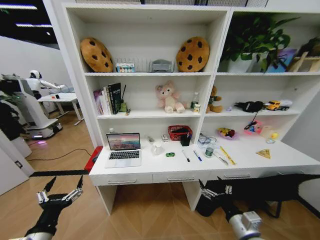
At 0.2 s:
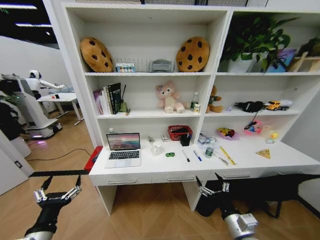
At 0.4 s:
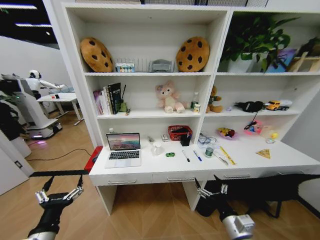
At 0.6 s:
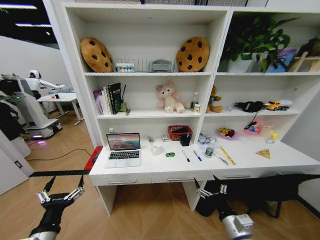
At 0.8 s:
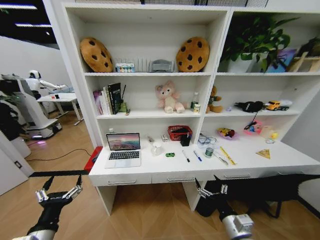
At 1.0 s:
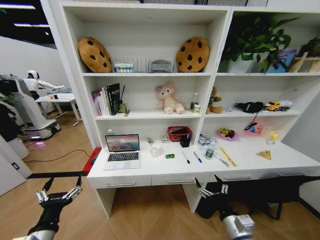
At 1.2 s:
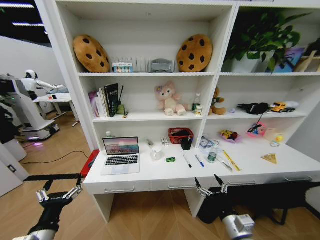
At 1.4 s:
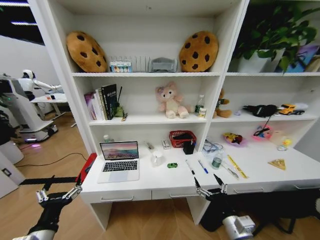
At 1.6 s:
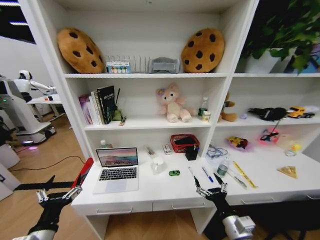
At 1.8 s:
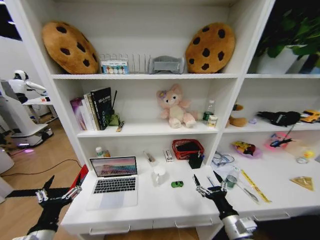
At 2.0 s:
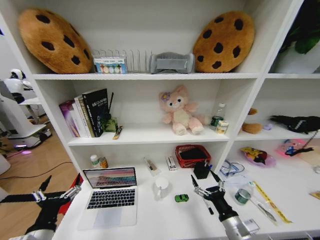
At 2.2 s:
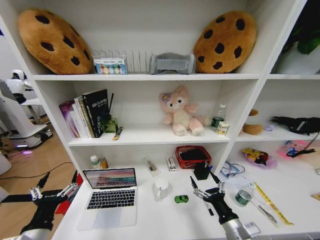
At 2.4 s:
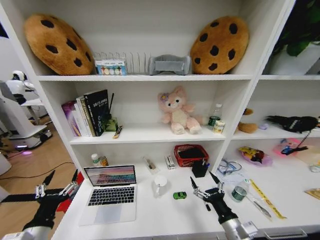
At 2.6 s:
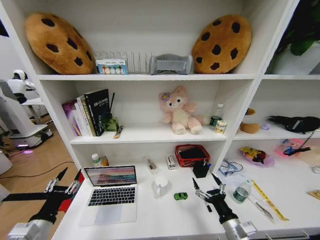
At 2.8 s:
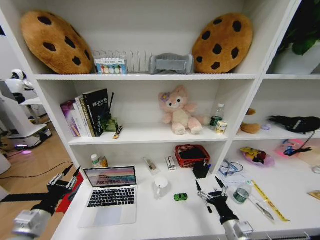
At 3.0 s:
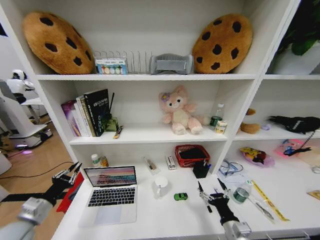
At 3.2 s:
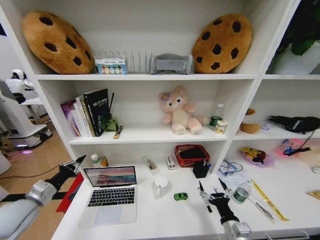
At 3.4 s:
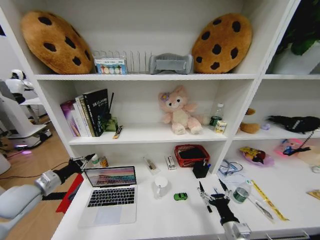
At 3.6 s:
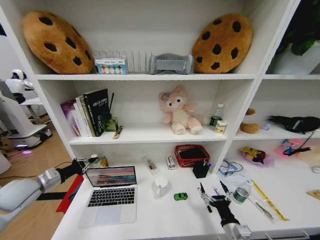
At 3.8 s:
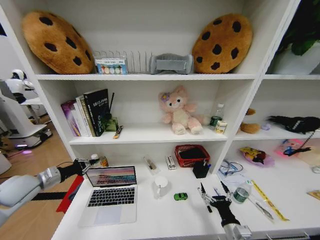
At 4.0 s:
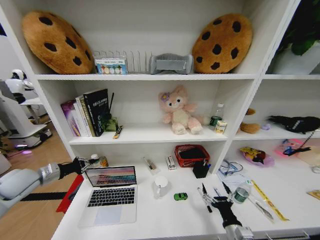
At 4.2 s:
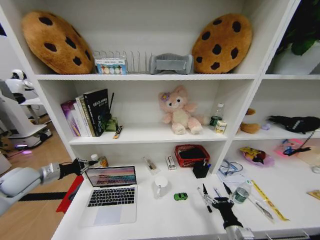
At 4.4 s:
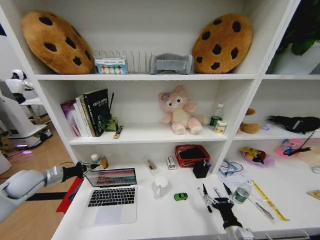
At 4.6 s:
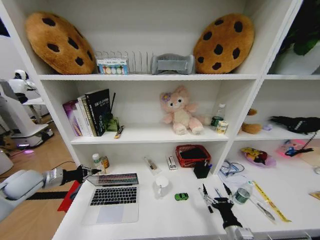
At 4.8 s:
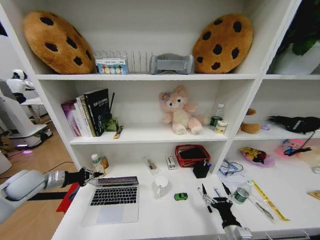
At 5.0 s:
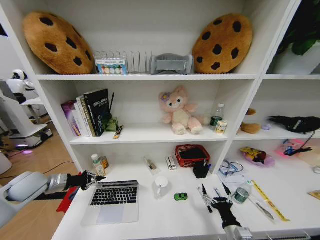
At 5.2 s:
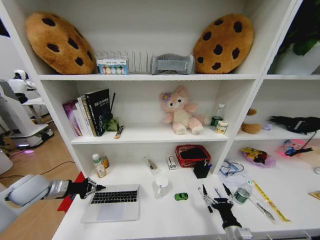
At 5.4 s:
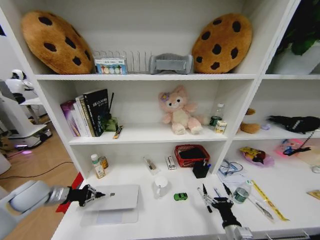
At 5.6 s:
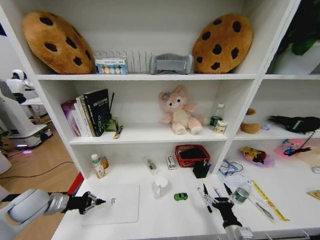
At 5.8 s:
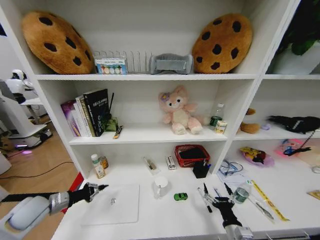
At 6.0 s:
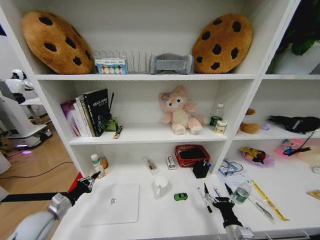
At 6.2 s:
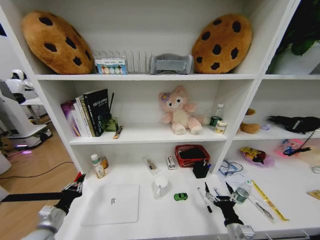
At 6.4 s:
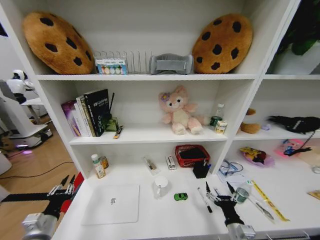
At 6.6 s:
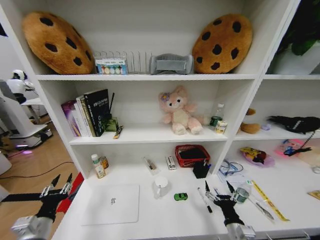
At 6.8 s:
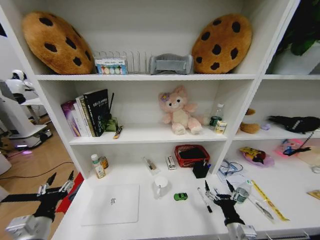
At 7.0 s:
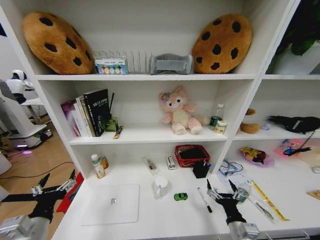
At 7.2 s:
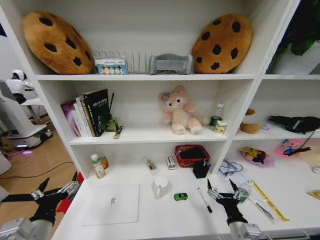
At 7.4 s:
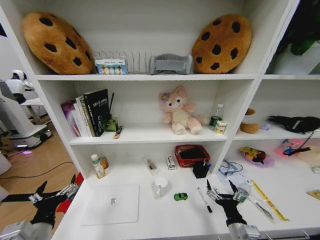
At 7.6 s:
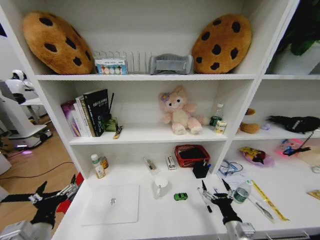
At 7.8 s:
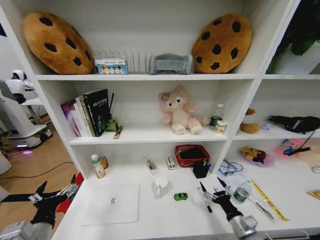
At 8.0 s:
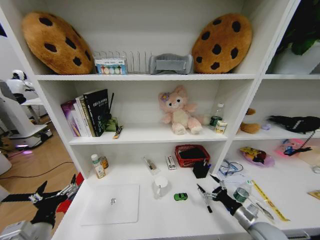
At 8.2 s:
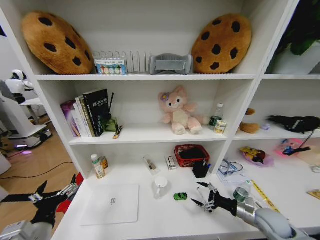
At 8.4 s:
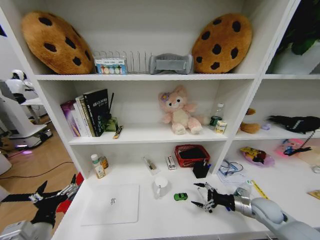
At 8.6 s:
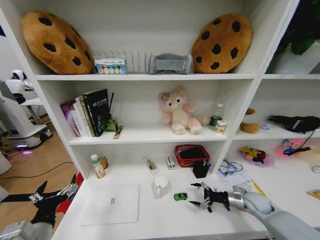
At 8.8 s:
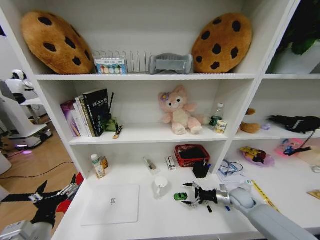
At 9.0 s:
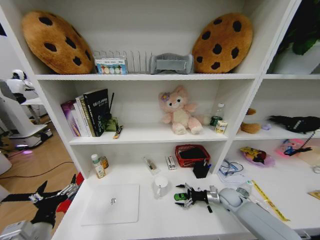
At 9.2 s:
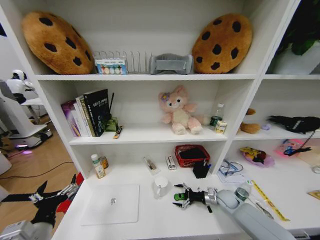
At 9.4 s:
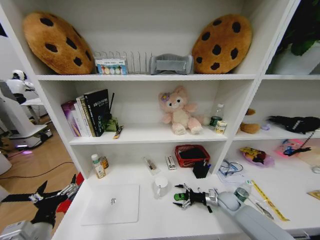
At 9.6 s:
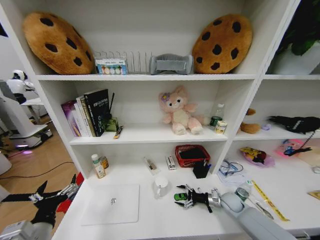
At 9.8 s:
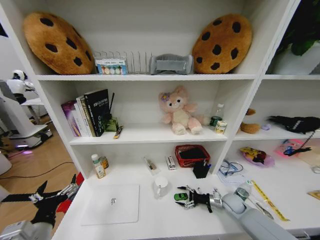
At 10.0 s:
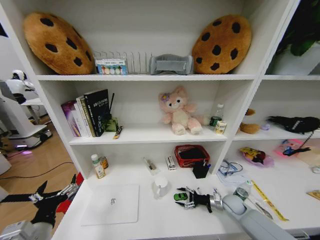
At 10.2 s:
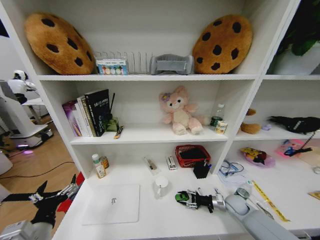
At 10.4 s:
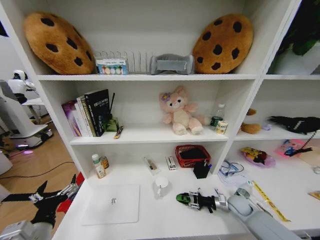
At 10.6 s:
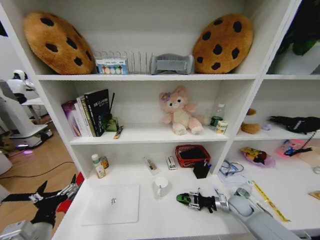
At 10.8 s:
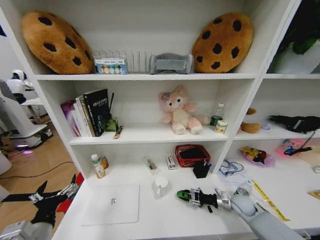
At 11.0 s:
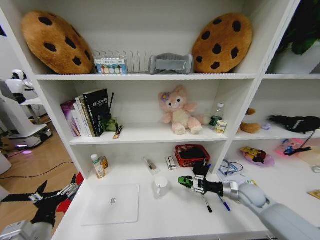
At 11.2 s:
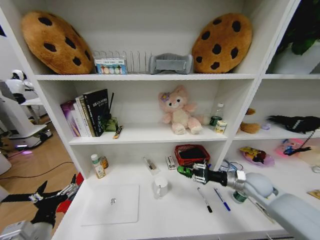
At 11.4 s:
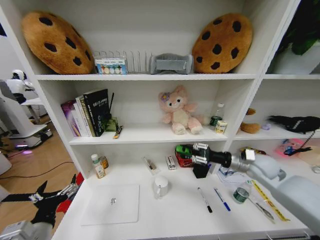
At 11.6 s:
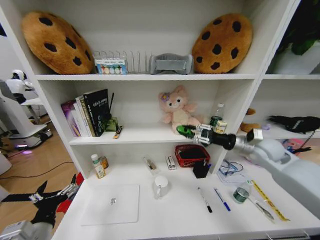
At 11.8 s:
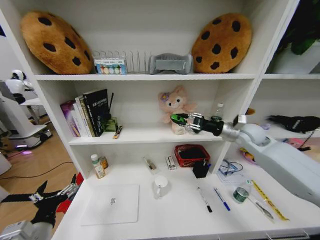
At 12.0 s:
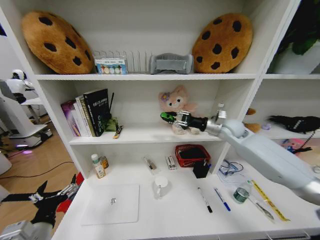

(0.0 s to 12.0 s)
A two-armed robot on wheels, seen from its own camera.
Task of the whole recording: Organize the objects on the table.
1.6 s - 3.0 s: The left gripper travels to the left and forward by approximately 15 cm, and closes its fingers.
3.0 s - 4.4 s: The left gripper moves forward and to the left, roughly 15 cm.
4.4 s - 6.0 s: The left gripper heads downward, backward and to the right, covering about 15 cm.
6.0 s - 7.6 s: The left gripper moves backward, to the right and upward, roughly 20 cm, and opens up.
7.6 s - 9.0 s: The right gripper moves forward and to the right, approximately 25 cm.
9.0 s - 10.4 s: The right gripper closes its fingers.
10.4 s - 12.0 s: The right gripper is displaced upward and forward by some 40 cm.

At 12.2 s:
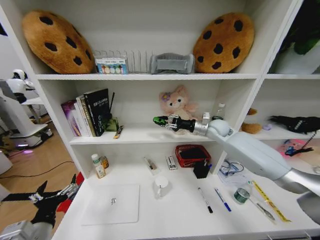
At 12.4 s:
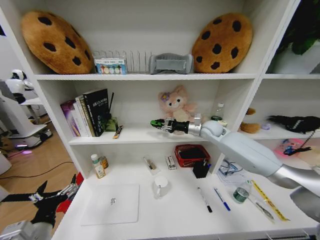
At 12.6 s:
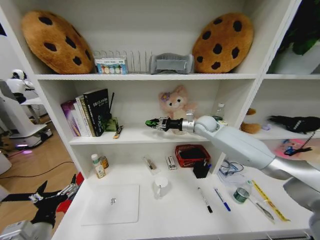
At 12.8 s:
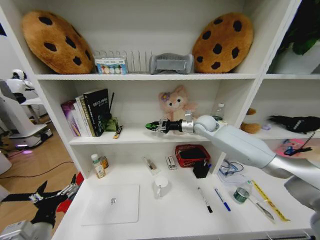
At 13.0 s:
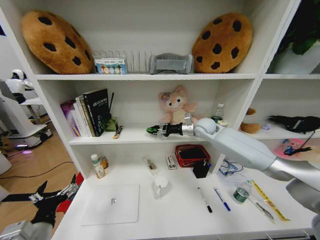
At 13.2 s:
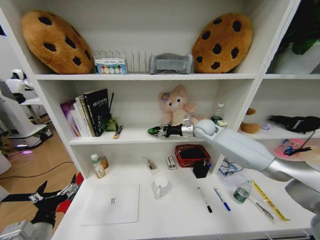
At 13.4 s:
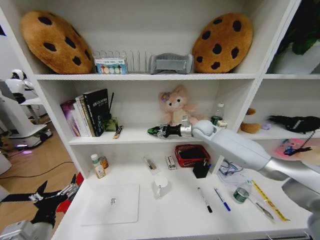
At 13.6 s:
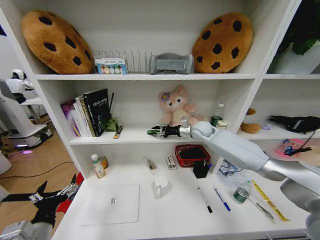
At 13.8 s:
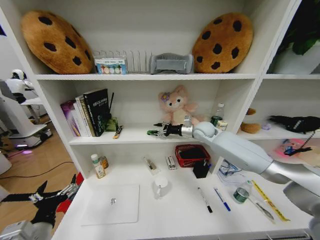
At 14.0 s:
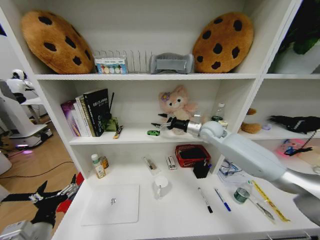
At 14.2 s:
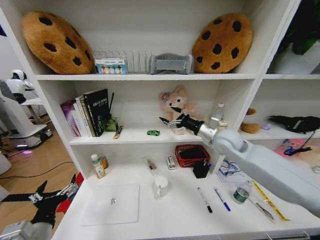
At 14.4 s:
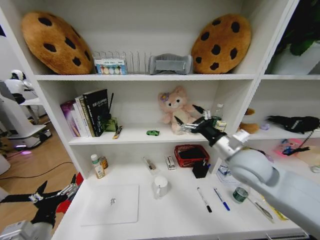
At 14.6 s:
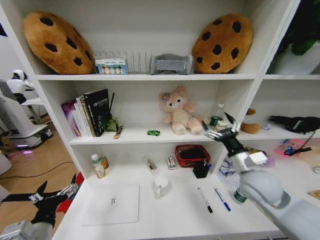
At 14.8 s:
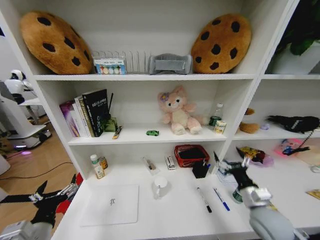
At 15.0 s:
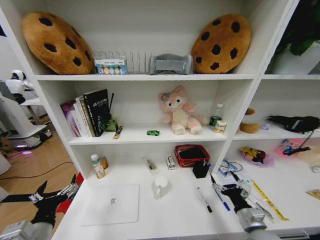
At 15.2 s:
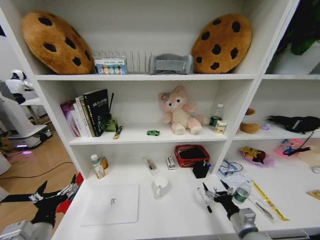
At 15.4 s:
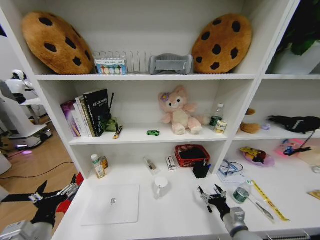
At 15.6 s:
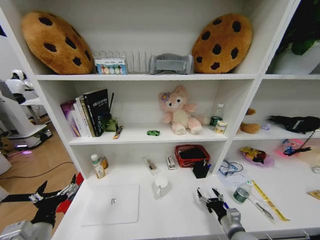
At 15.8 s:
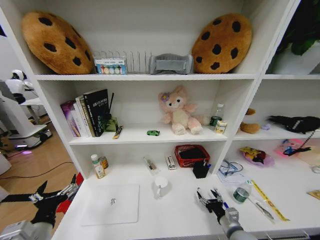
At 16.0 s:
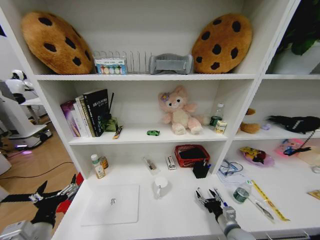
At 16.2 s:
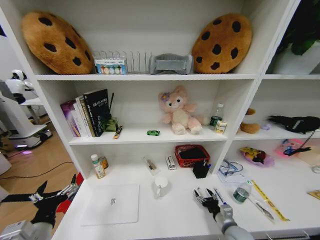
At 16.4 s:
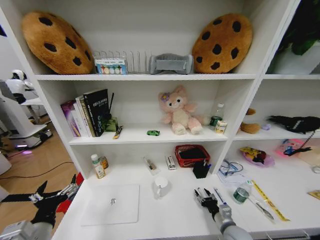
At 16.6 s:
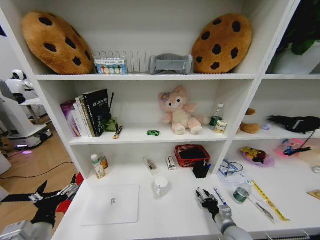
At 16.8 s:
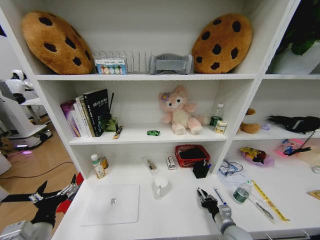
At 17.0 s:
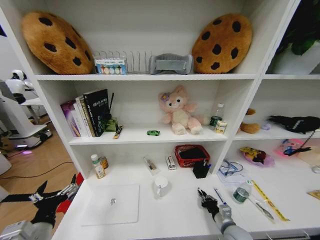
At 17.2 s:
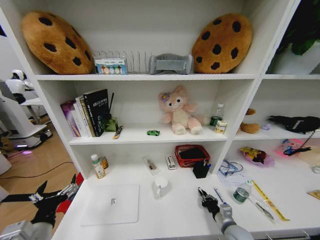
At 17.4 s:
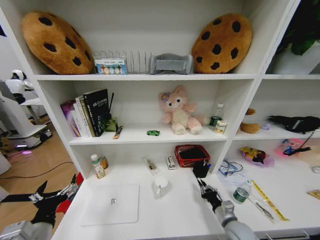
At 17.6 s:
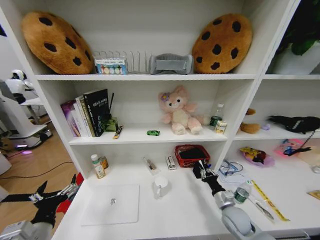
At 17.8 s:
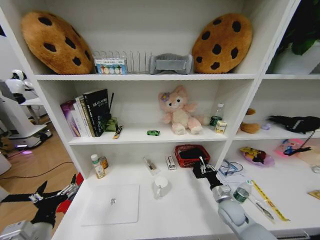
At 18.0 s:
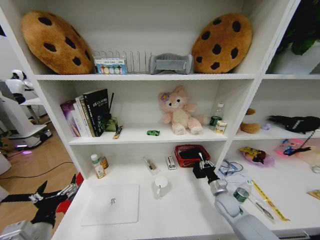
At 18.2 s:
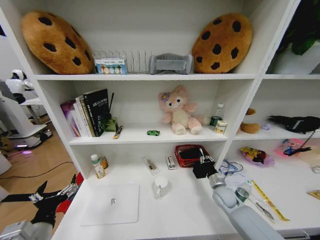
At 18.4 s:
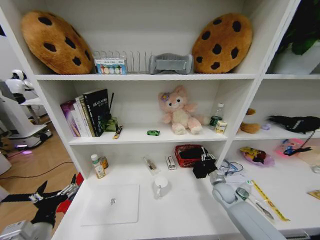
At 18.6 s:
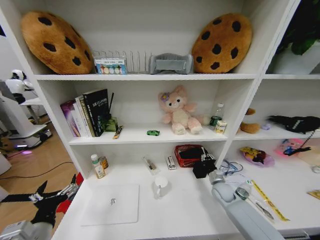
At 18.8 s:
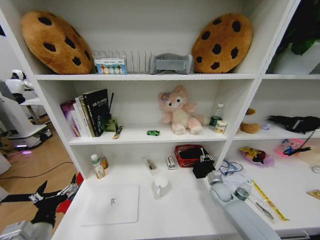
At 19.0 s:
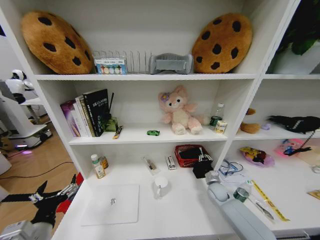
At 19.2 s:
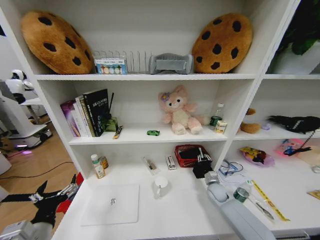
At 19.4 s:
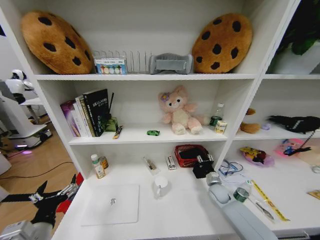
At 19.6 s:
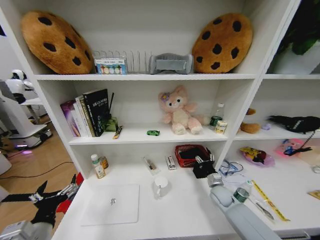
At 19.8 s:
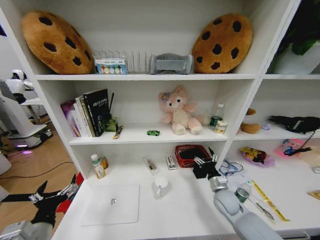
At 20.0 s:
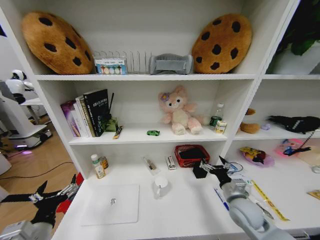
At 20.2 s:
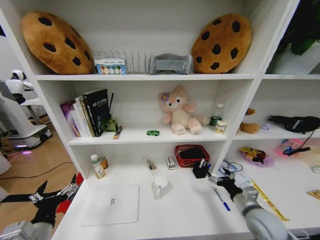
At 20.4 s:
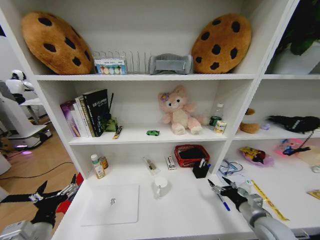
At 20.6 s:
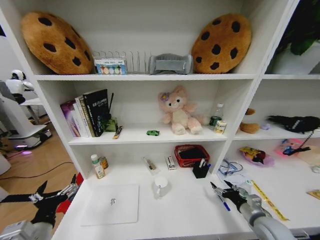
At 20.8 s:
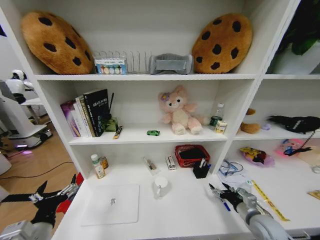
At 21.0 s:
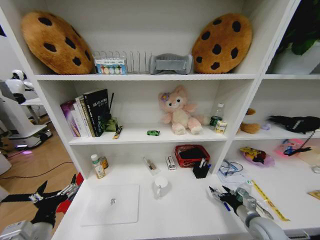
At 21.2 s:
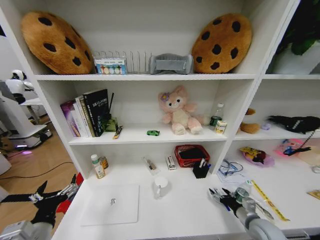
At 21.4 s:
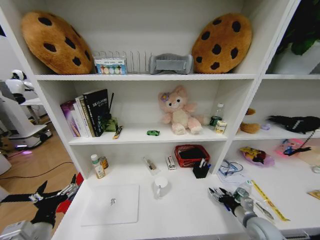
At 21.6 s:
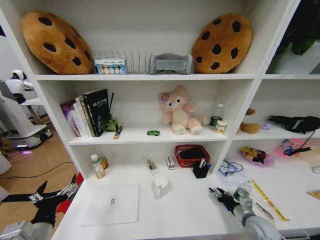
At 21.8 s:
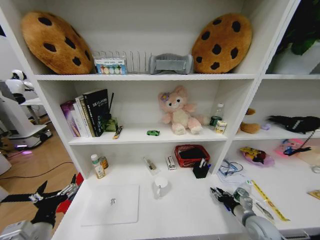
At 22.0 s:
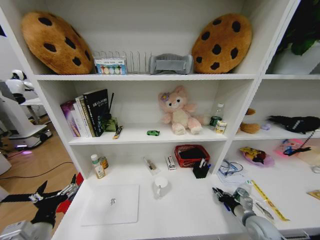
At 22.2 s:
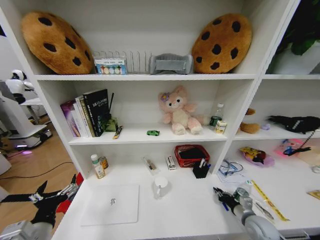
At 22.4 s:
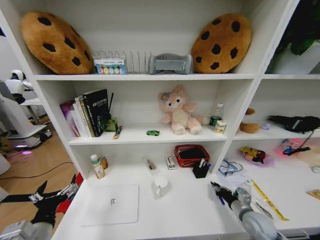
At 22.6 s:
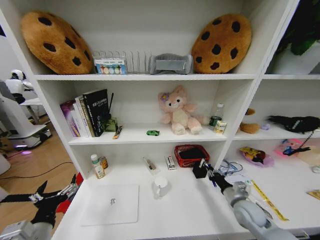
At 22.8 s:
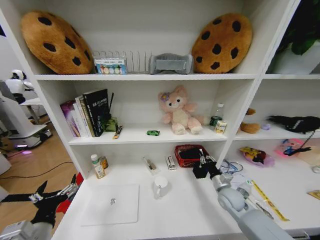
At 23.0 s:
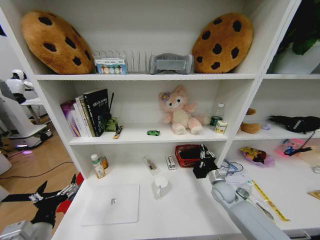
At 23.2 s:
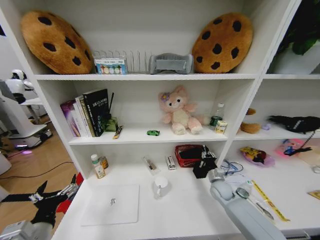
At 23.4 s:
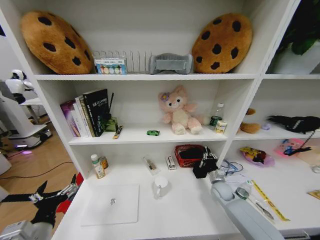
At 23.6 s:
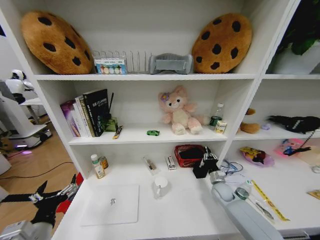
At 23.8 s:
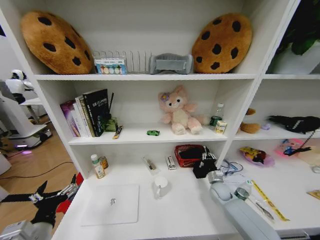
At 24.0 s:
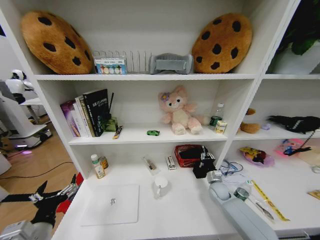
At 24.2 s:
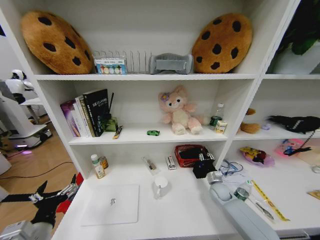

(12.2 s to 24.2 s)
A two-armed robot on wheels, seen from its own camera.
Task of the whole recording: Organize the objects on the table.
12.2 s - 13.8 s: The right gripper ends up about 5 cm from where it was.
13.8 s - 15.2 s: The right gripper goes roughly 40 cm backward and downward, and opens its fingers.
15.2 s - 16.6 s: The right gripper travels downward by about 5 cm, and closes.
16.6 s - 18.2 s: The right gripper is displaced forward by roughly 15 cm, and closes.
18.2 s - 19.8 s: The right gripper changes place by about 5 cm, and opens.
19.8 s - 21.2 s: The right gripper goes roughly 15 cm to the right and backward.
21.2 s - 22.6 s: The right gripper travels forward by some 5 cm, and closes up.
22.6 s - 24.2 s: The right gripper moves forward and downward, some 15 cm.
